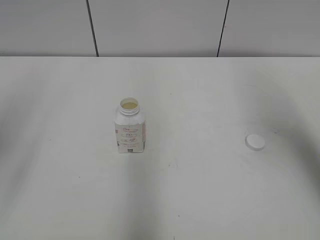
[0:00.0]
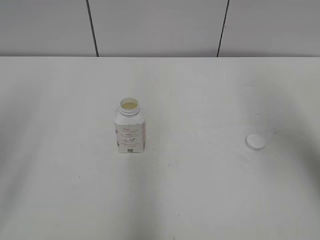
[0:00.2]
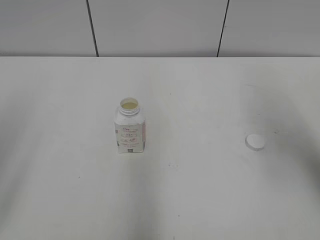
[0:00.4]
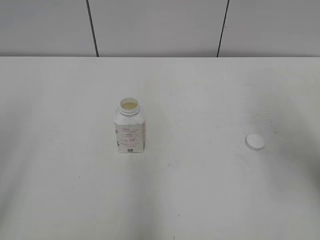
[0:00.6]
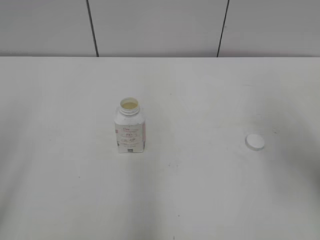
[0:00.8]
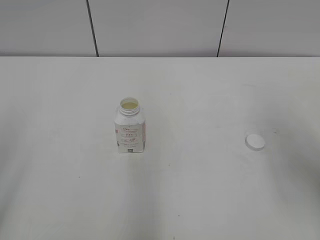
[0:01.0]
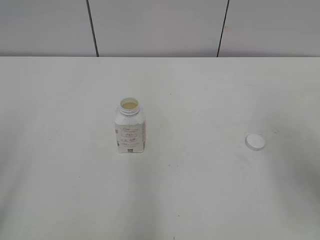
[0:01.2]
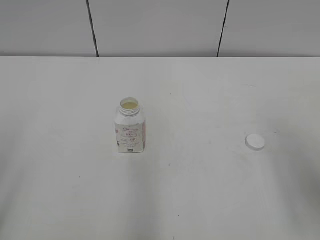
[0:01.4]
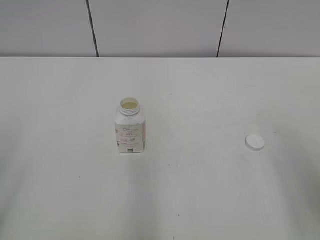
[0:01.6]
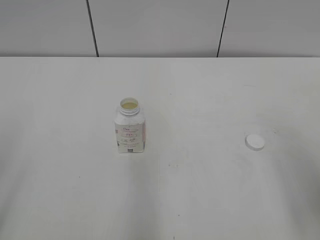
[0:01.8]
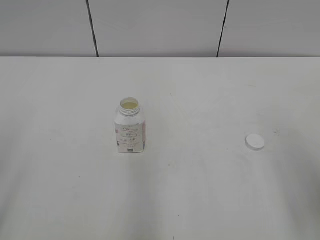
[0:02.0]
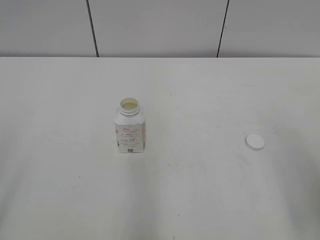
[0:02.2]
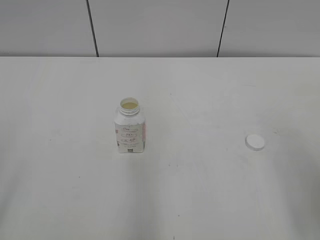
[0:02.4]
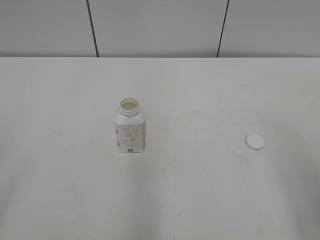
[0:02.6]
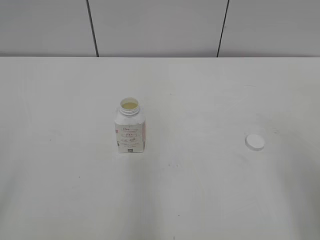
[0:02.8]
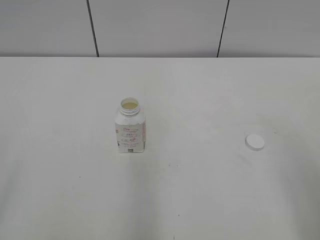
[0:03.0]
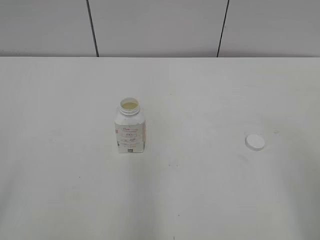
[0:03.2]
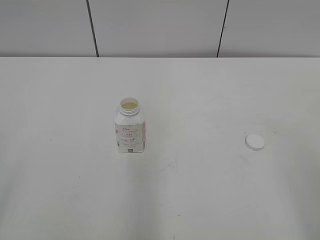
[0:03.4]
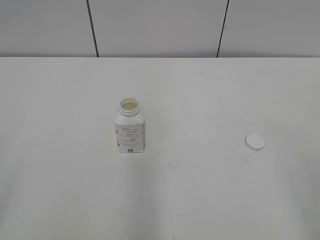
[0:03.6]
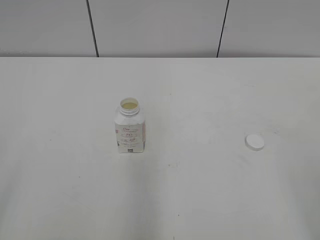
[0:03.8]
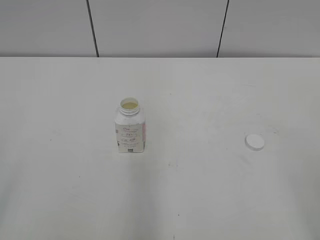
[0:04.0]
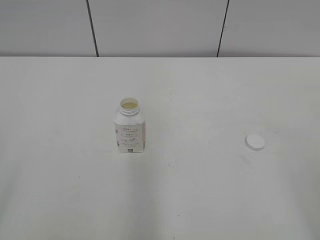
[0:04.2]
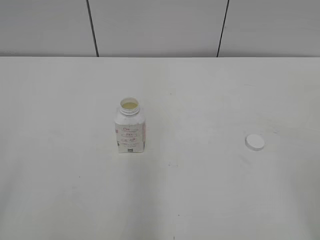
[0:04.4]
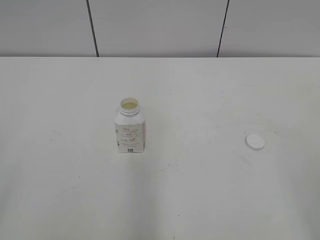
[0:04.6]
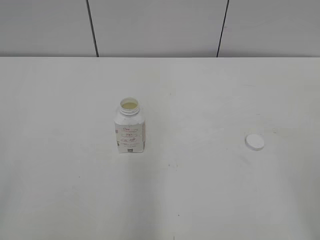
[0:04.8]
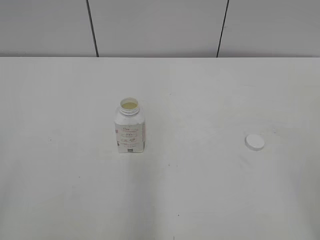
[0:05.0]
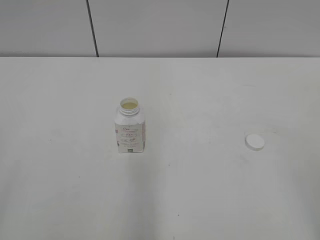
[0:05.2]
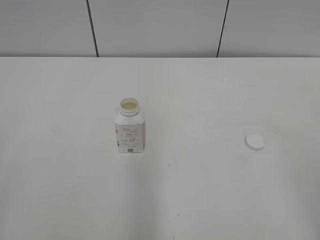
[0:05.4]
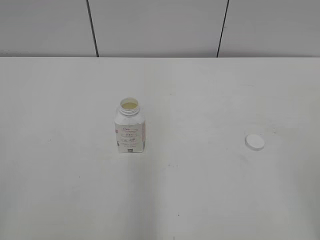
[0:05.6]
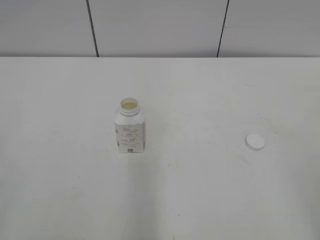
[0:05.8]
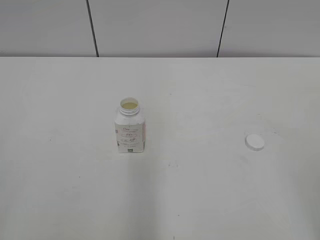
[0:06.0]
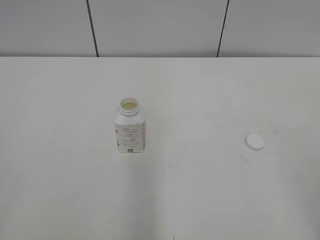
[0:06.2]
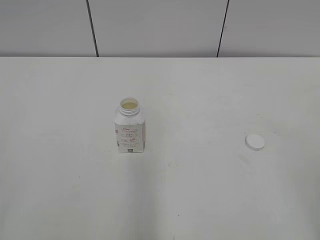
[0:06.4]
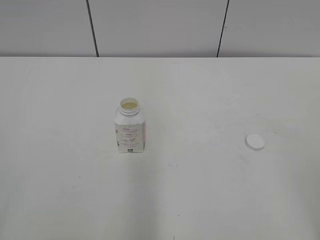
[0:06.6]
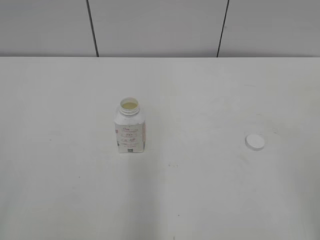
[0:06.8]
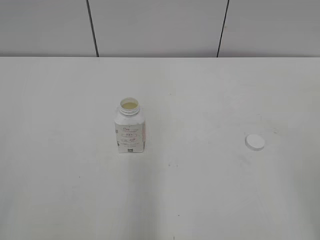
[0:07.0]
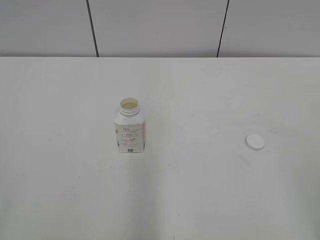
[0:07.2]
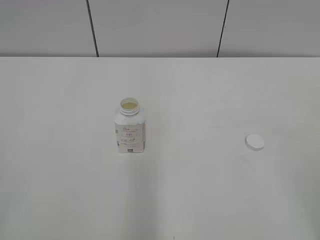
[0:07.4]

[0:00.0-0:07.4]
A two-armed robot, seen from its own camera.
0:00.0 to 0:01.4: The right gripper is displaced backward and downward by roughly 15 cm.
0:06.0 to 0:07.4: Both grippers stay about where they are.

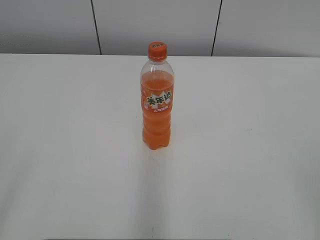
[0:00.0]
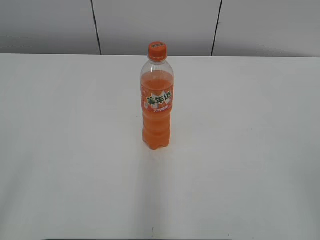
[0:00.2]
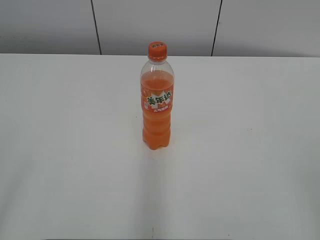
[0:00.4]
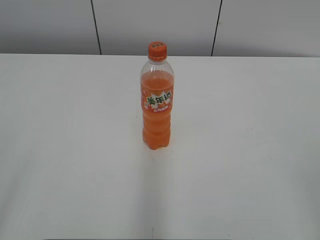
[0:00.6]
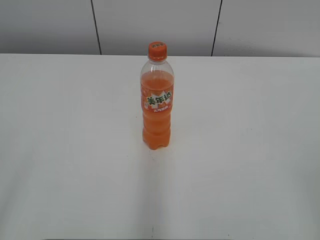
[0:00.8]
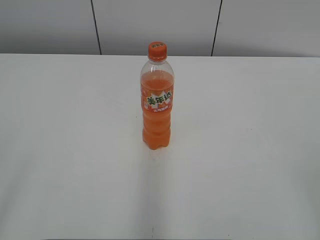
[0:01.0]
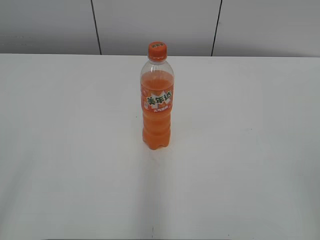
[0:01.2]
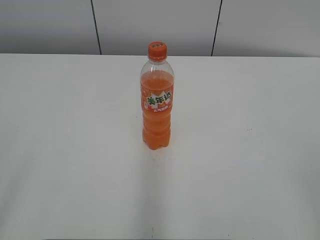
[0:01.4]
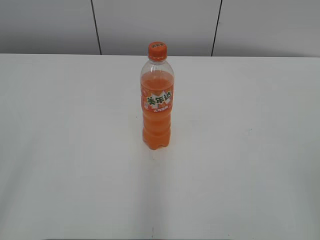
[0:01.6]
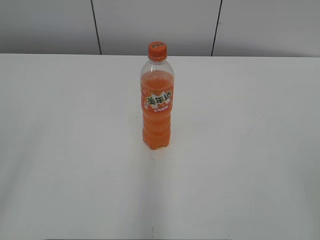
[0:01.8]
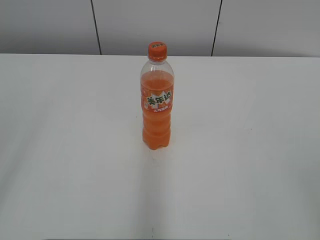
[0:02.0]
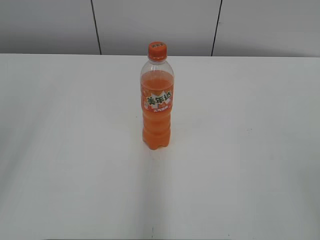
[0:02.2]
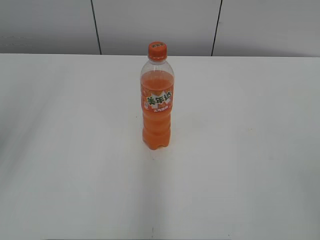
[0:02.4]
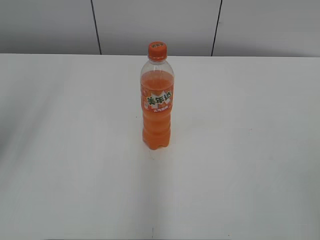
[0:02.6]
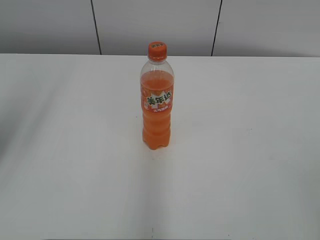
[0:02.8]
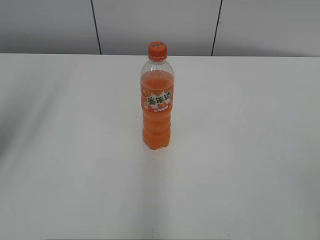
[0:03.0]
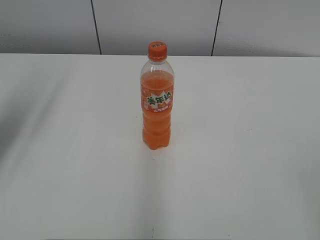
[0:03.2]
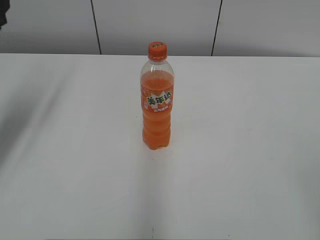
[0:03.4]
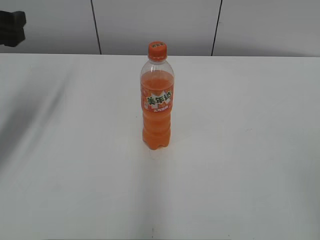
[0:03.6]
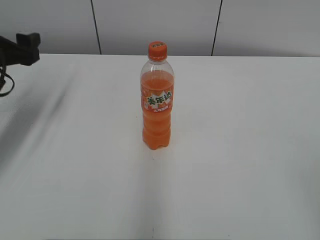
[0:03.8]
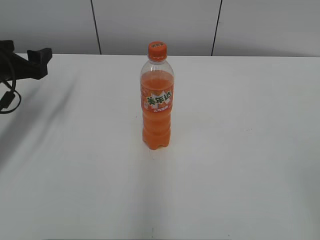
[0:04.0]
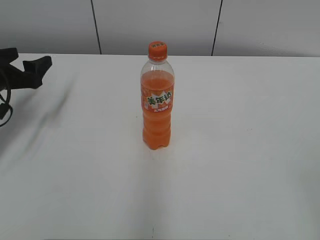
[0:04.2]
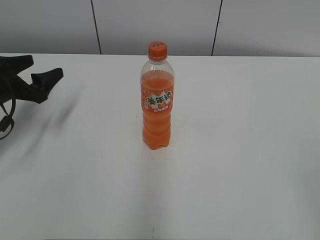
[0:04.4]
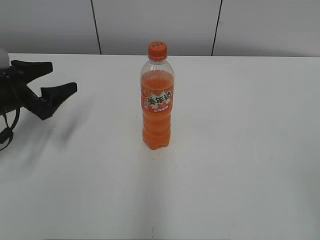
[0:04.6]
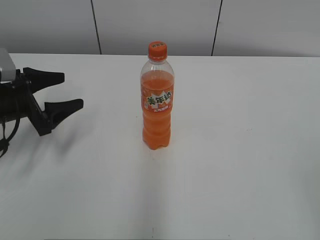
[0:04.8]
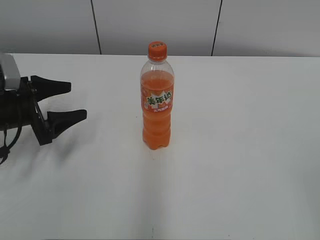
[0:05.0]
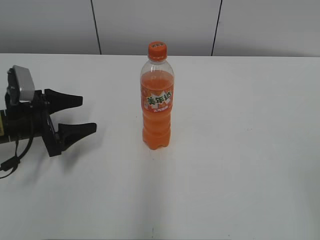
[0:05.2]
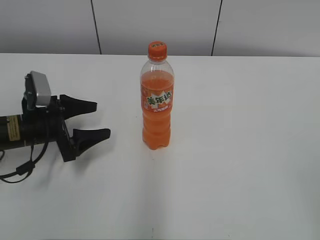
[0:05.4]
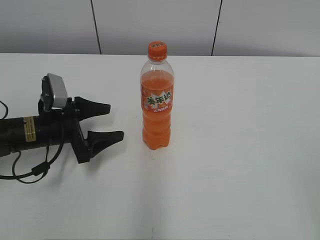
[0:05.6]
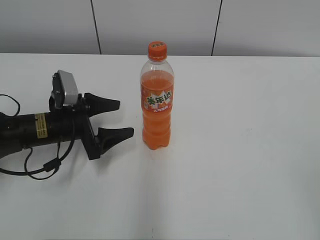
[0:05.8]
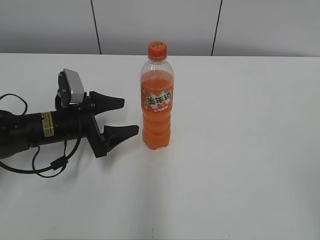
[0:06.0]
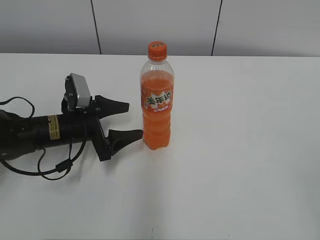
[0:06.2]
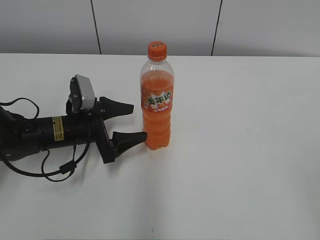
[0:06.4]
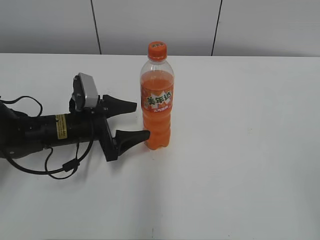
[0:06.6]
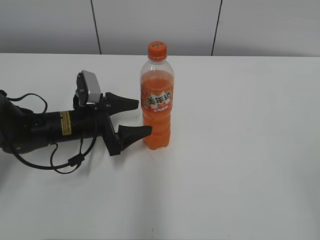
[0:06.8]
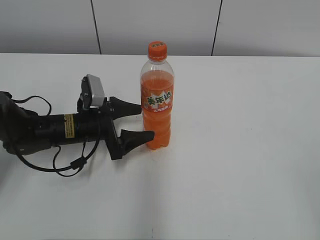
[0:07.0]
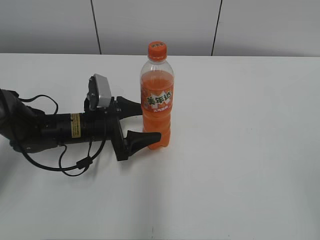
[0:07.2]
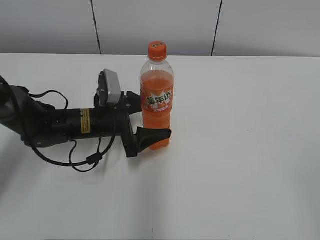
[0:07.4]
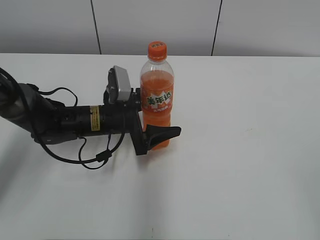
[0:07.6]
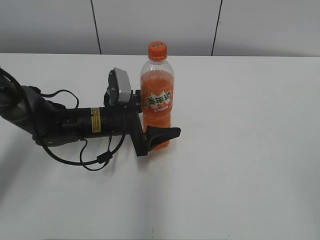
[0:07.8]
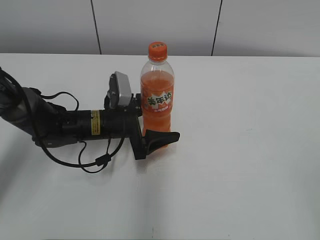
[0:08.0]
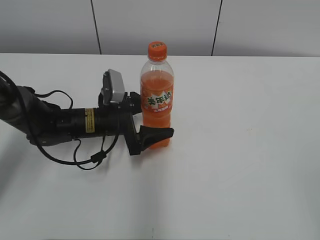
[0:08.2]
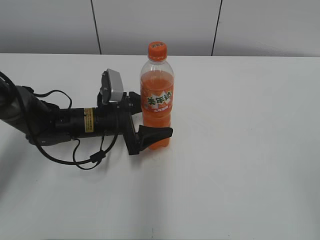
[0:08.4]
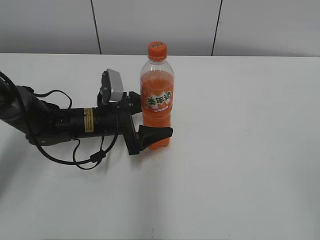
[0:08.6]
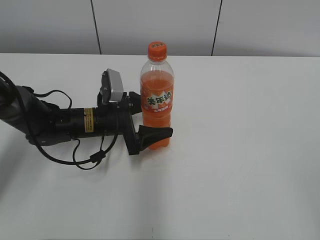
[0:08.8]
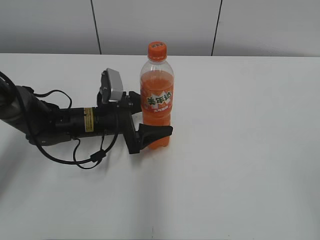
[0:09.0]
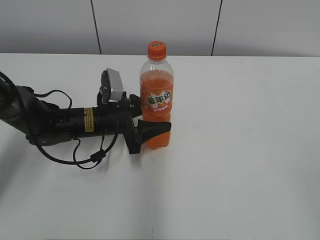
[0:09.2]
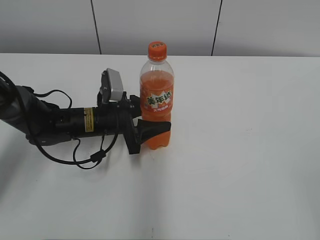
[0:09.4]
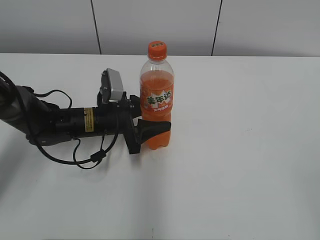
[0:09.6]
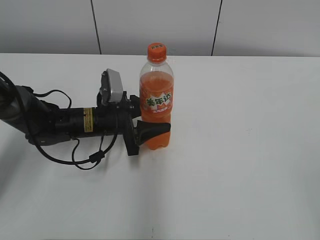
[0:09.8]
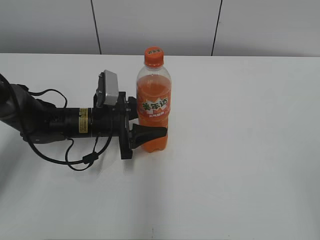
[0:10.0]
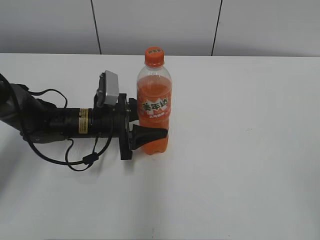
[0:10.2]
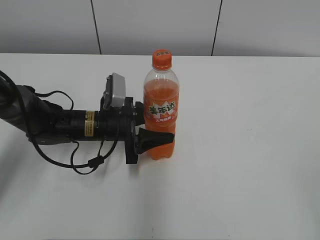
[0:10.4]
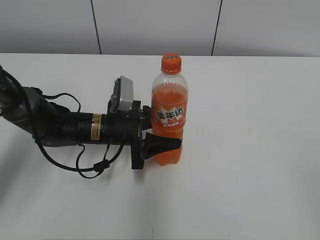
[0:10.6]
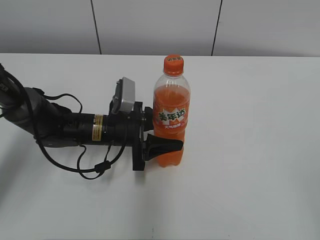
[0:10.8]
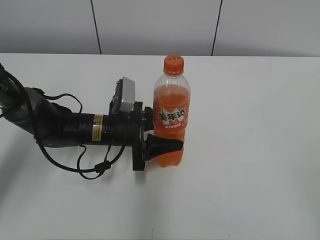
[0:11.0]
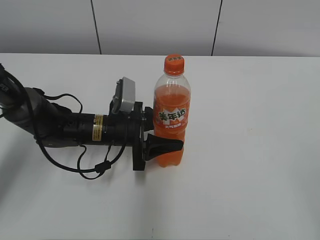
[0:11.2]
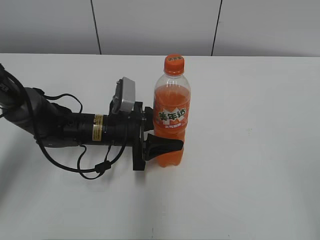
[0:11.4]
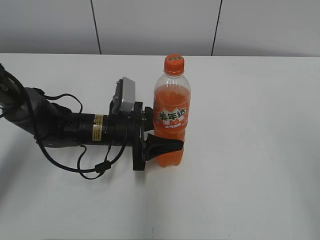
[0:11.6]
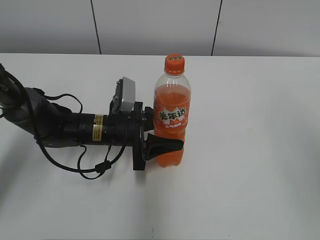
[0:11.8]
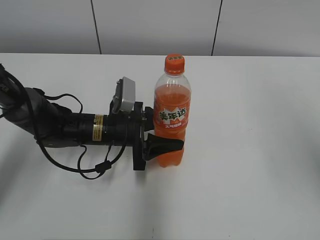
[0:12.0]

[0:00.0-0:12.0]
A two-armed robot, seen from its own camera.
Step, 0:00.0 to 0:09.2: Grasp the bottle and move it to the center of the table with the left gripper.
Step, 0:09.4 to 0:11.4: Lift the bottle and move it to the center of the table with the left gripper.
0:01.6 to 0:03.0: The left gripper heads forward, covering some 25 cm.
0:03.0 to 0:04.4: The left gripper travels downward and forward by about 25 cm.
0:04.4 to 0:06.0: The left gripper goes about 15 cm to the right and downward.
0:06.0 to 0:07.6: The left gripper shifts about 10 cm to the right.
0:07.6 to 0:09.0: The grippers move only a little.
0:09.0 to 0:10.4: The left gripper closes.
0:10.4 to 0:12.0: The right gripper heads forward and upward, covering roughly 20 cm.

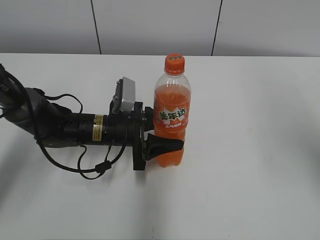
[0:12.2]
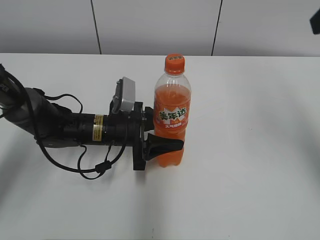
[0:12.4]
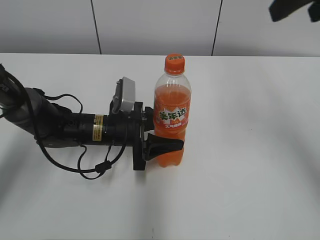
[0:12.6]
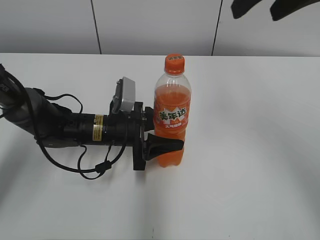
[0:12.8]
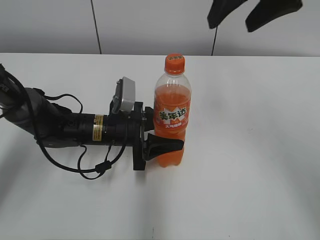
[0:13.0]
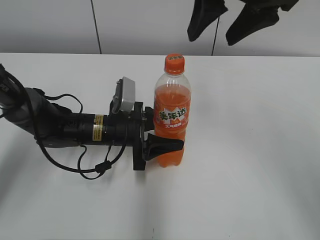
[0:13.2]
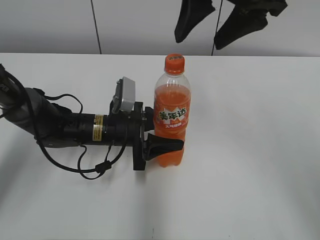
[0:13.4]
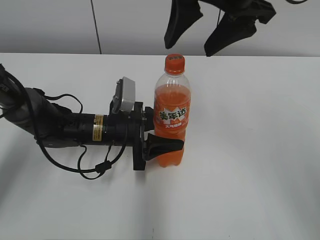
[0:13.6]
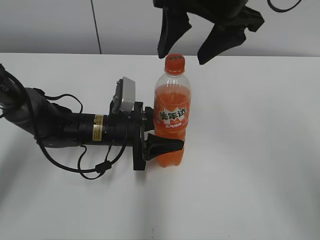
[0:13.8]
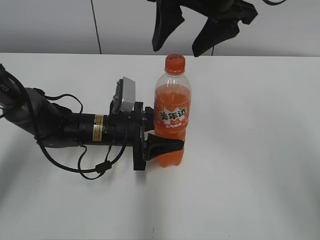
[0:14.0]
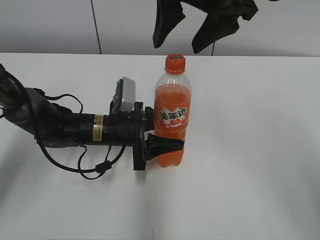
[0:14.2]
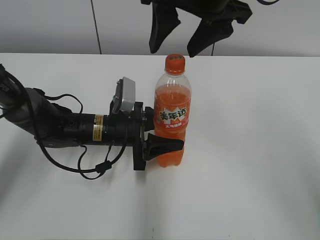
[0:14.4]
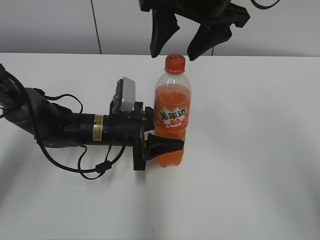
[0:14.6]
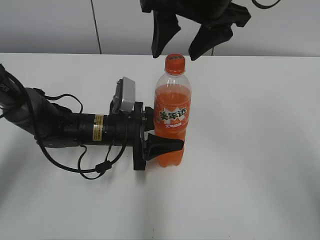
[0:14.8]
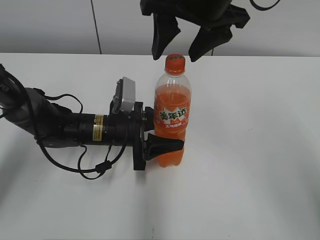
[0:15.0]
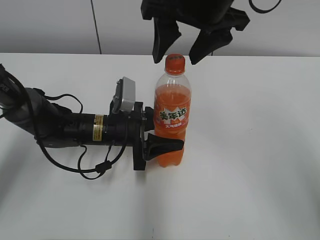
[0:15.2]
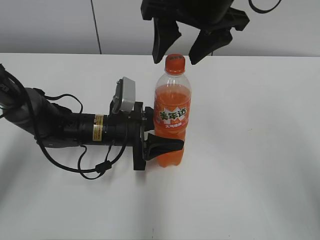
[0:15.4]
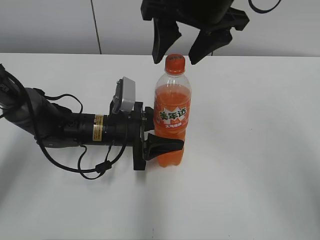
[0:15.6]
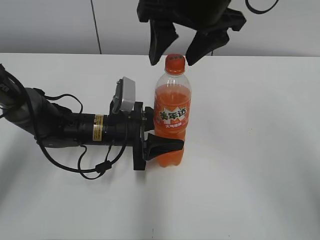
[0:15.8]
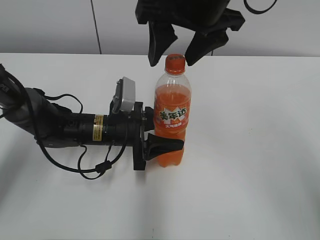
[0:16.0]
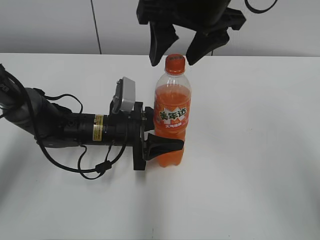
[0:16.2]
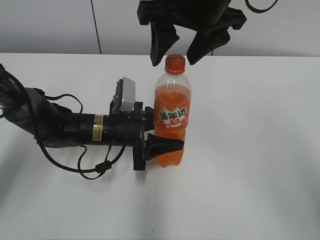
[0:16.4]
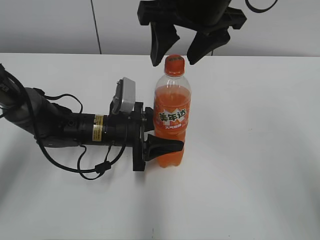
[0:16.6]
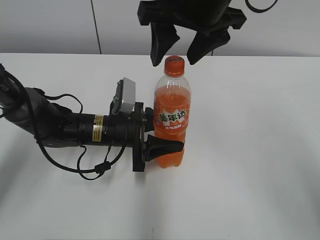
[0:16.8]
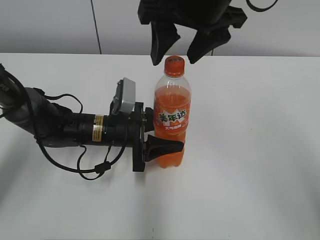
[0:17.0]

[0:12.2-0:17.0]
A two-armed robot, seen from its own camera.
0:12.2 to 0:13.8: The right gripper is displaced to the left and forward by some 20 cm.
0:13.8 to 0:15.4: The grippers stay close to where they were, moving slightly.
0:15.4 to 0:17.0: Both grippers stay put.
